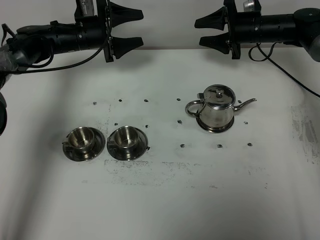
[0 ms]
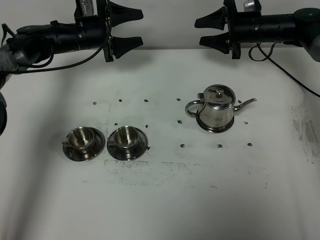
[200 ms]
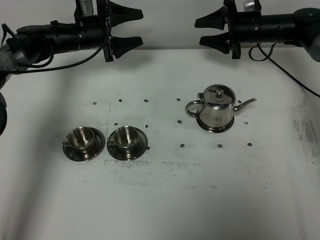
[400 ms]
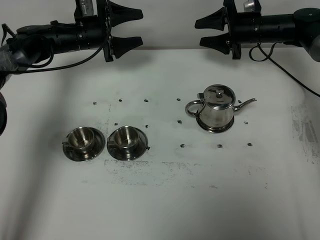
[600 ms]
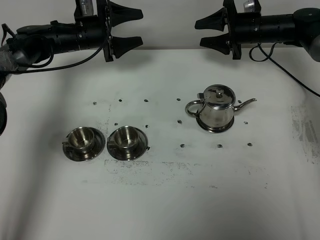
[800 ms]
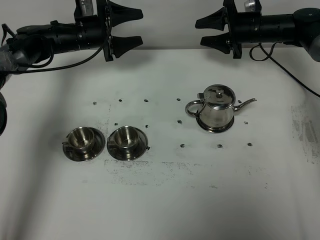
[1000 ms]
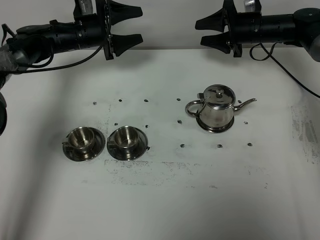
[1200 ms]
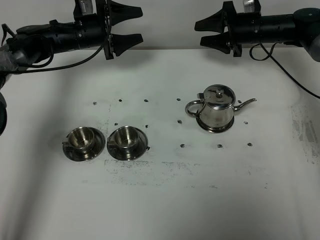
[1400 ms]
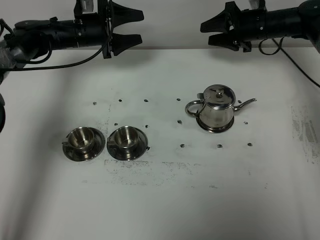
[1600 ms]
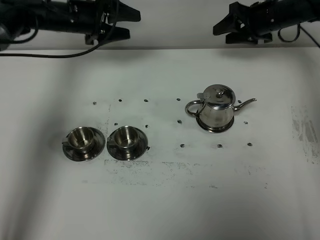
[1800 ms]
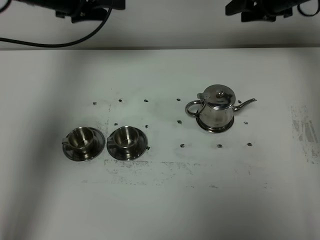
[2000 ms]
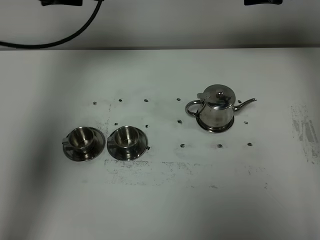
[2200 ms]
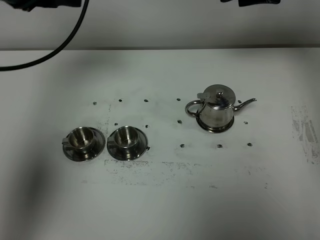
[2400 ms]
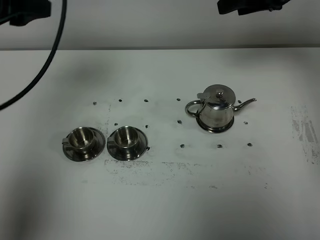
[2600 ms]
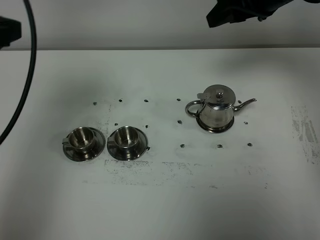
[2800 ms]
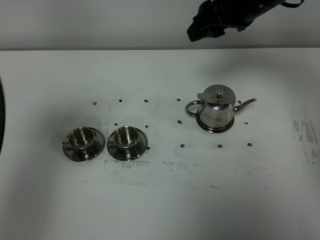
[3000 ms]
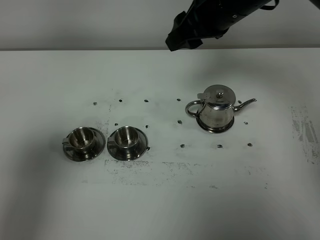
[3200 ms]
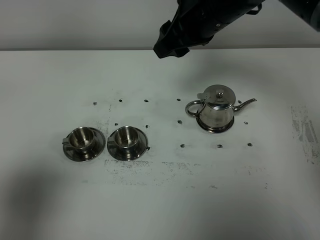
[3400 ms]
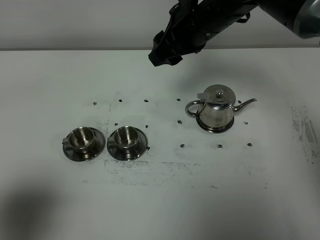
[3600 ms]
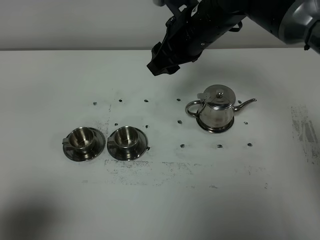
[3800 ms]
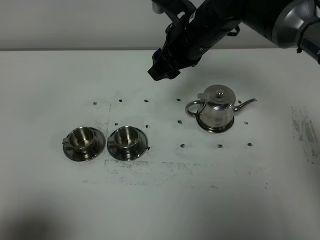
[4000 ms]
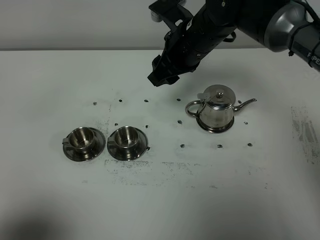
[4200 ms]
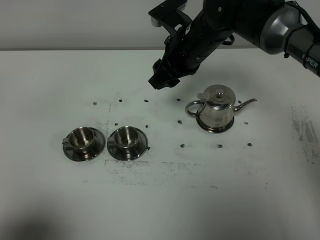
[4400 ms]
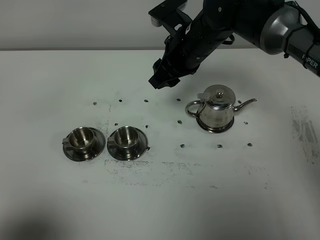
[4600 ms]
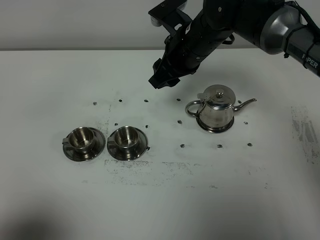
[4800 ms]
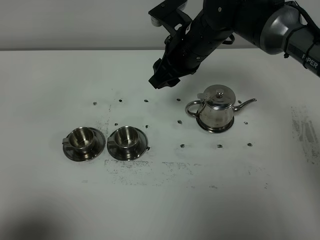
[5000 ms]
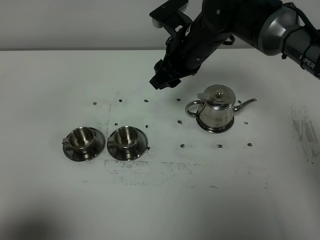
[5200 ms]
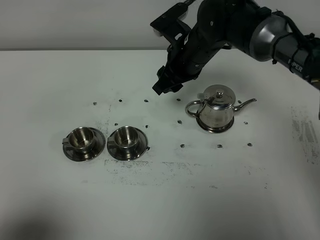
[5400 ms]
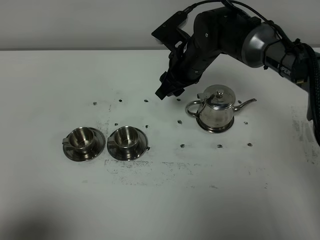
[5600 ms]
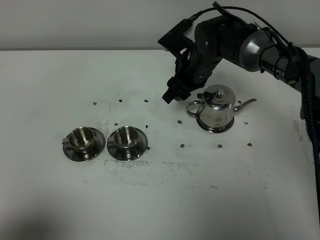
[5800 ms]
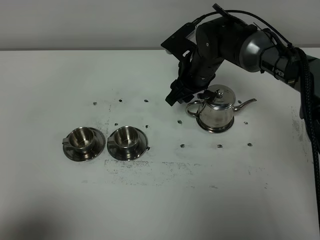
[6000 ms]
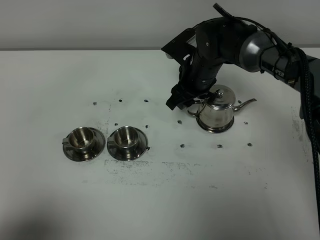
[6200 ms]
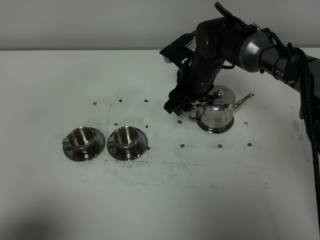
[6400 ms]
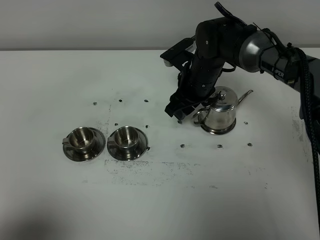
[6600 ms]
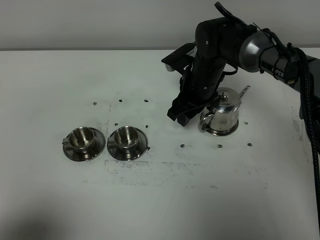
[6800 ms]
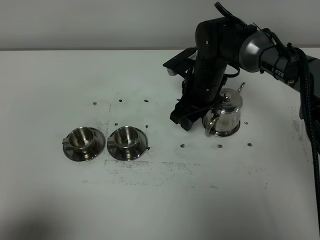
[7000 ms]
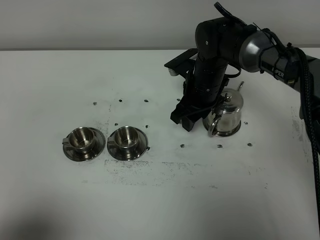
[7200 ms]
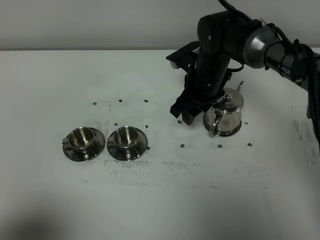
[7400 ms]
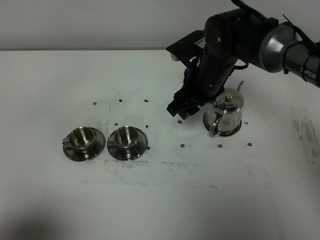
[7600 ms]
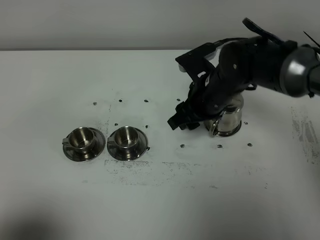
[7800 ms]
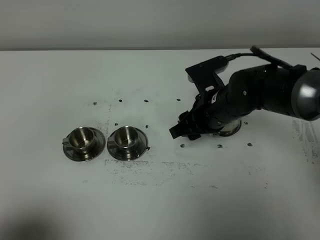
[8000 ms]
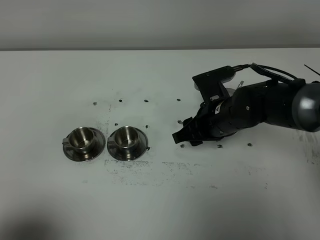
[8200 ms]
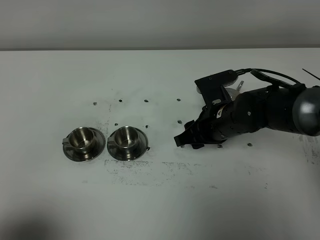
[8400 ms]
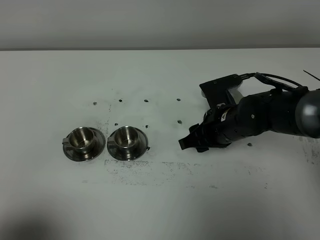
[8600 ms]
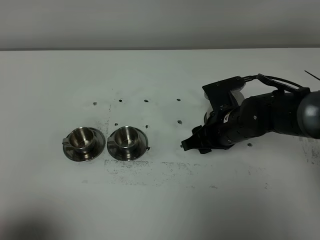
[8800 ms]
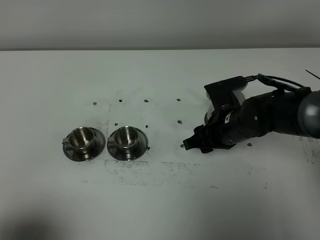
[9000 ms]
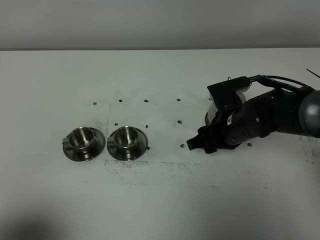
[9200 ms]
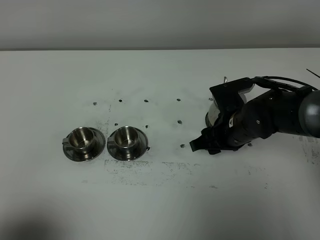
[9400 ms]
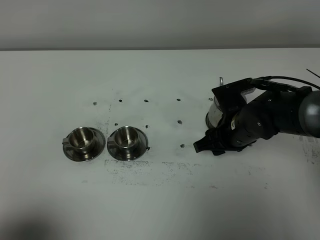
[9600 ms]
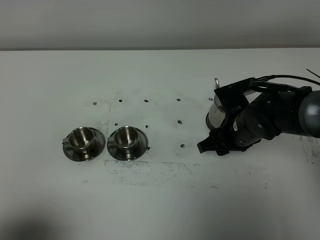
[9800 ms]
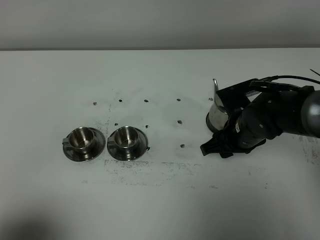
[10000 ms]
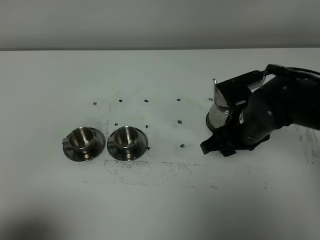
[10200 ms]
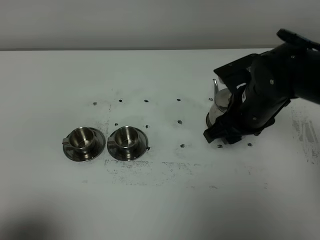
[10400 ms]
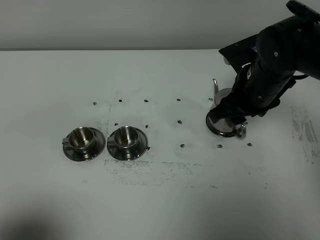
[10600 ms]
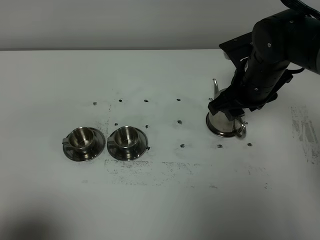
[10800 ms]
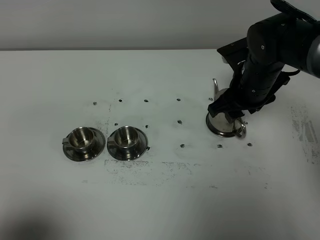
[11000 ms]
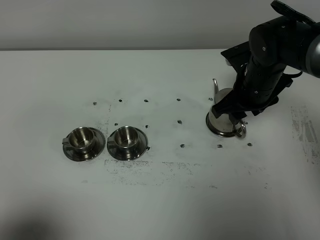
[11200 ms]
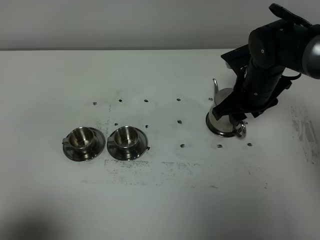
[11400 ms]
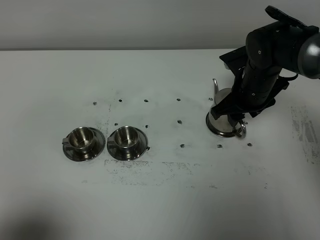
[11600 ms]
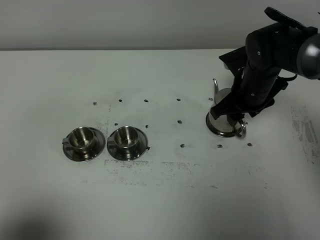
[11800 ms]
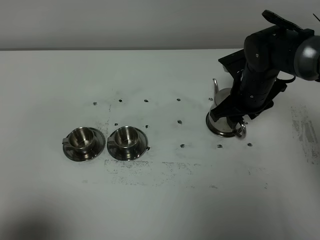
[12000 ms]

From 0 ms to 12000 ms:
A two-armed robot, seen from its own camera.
Task of the whole recording: grasp the stainless steel teapot and pour the tea into the two stainless steel teacups one by one, put the stainless steel teapot back in its original place.
From 0 ms to 1600 ms: The grippers make only small movements.
From 1600 ms to 3000 ms: The right gripper heads upward, backward and to the left, covering approximately 25 cm. The left gripper heads backward and upward, covering some 40 cm, and closes up.
From 3000 ms to 4400 ms: The right gripper moves downward and to the left, some 10 cm; the left gripper travels backward and downward by some 20 cm.
From 4400 ms to 6000 ms: The right gripper travels downward by about 10 cm.
From 6000 ms to 7600 ms: The right gripper heads backward, covering roughly 5 cm.
From 7600 ms to 9000 ms: The right gripper goes approximately 10 cm backward and downward.
From 9000 ms to 10400 ms: The right gripper shifts some 10 cm upward.
From 10400 ms to 12000 ms: The right gripper heads forward and downward, covering about 10 cm.

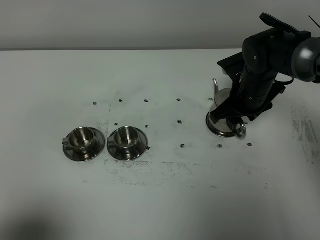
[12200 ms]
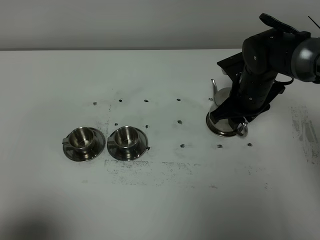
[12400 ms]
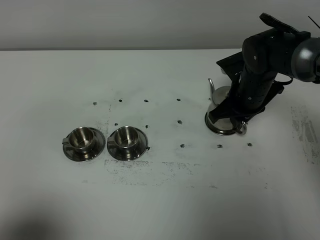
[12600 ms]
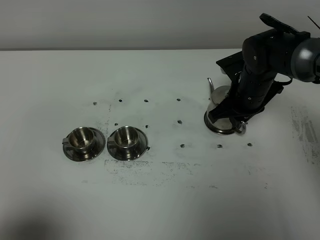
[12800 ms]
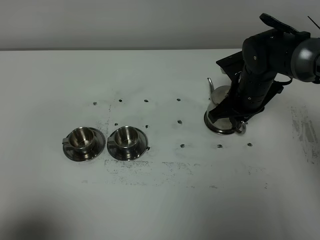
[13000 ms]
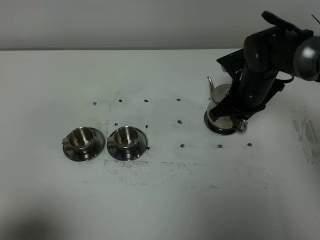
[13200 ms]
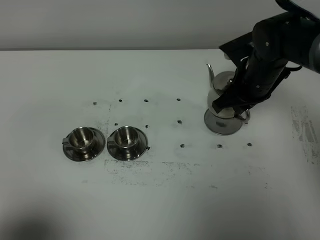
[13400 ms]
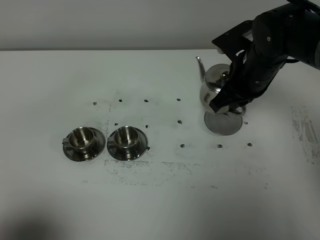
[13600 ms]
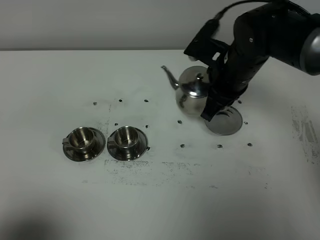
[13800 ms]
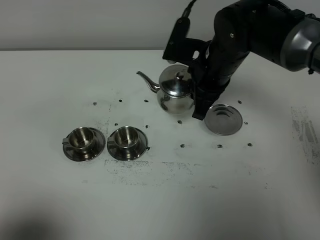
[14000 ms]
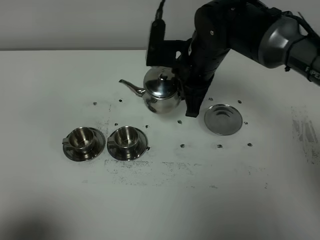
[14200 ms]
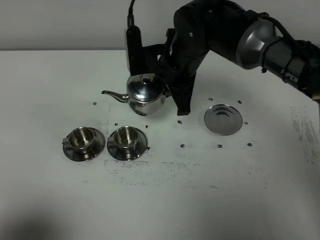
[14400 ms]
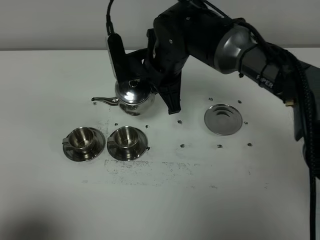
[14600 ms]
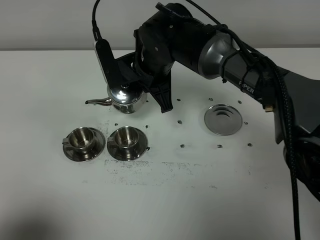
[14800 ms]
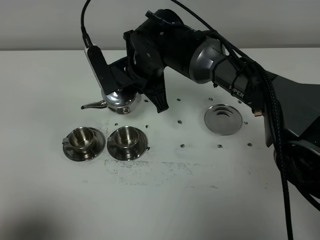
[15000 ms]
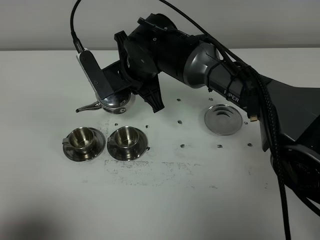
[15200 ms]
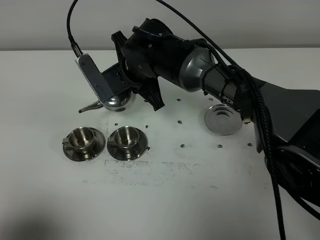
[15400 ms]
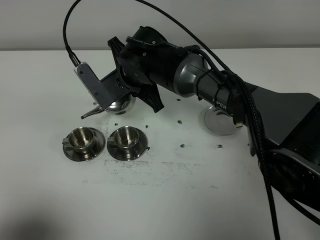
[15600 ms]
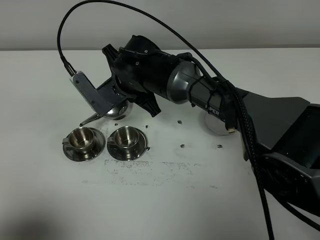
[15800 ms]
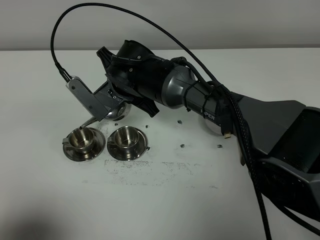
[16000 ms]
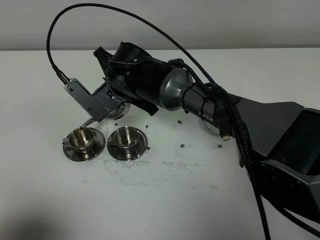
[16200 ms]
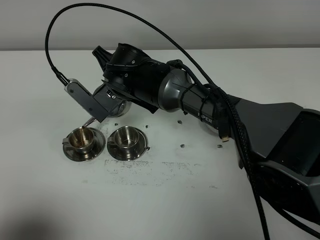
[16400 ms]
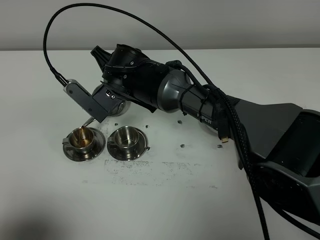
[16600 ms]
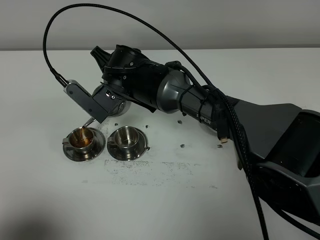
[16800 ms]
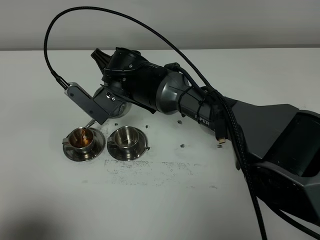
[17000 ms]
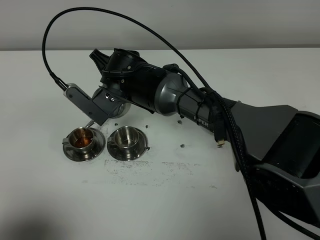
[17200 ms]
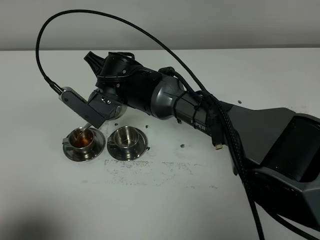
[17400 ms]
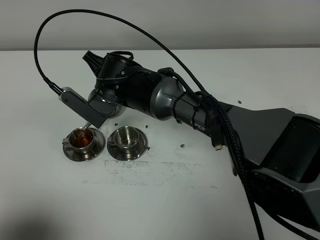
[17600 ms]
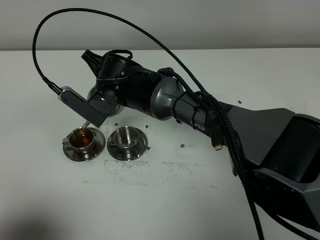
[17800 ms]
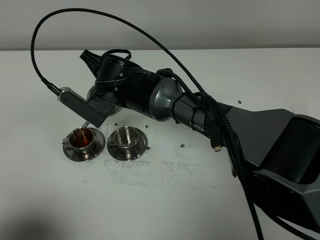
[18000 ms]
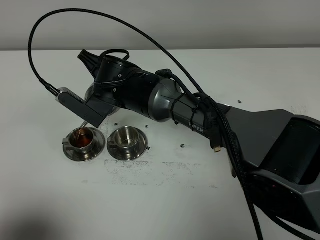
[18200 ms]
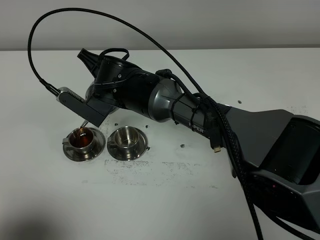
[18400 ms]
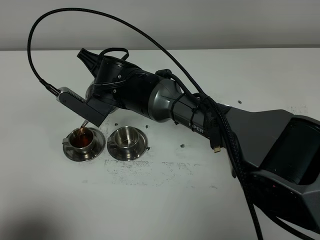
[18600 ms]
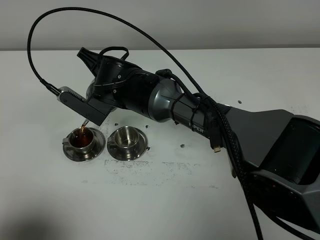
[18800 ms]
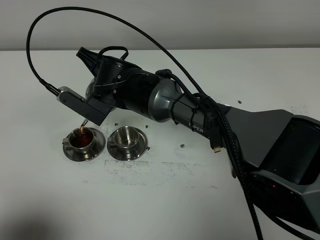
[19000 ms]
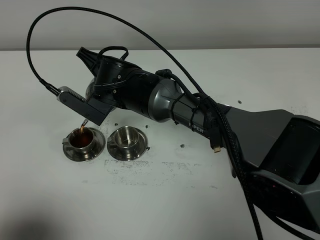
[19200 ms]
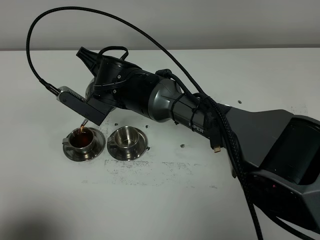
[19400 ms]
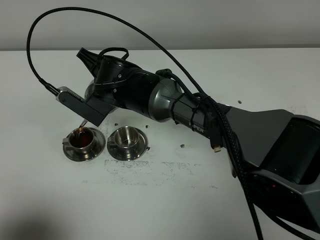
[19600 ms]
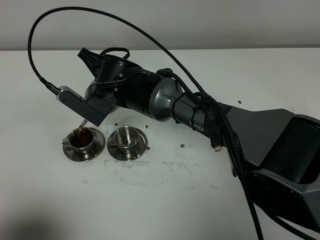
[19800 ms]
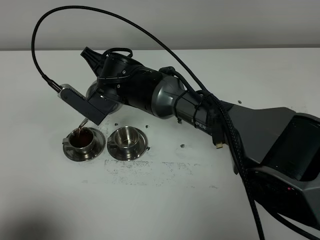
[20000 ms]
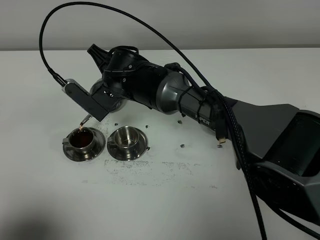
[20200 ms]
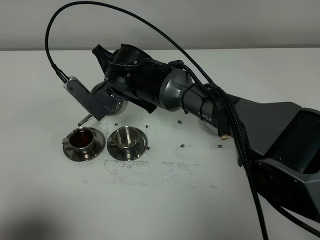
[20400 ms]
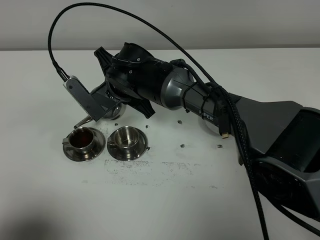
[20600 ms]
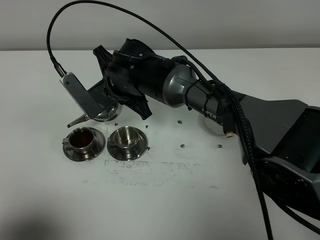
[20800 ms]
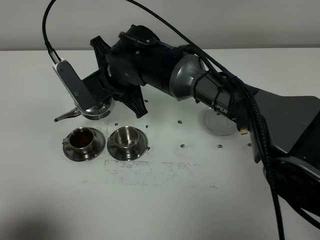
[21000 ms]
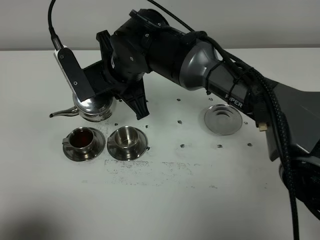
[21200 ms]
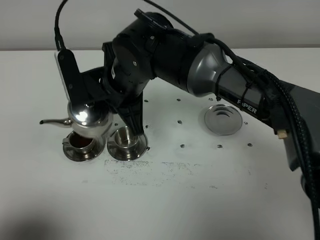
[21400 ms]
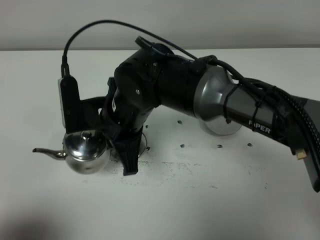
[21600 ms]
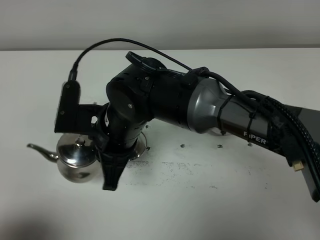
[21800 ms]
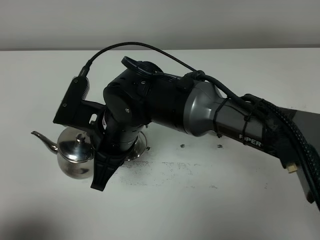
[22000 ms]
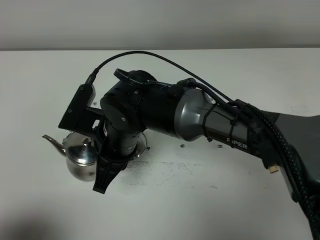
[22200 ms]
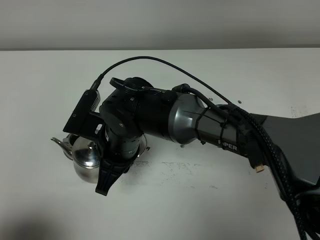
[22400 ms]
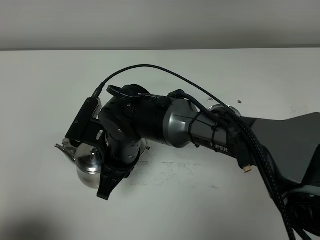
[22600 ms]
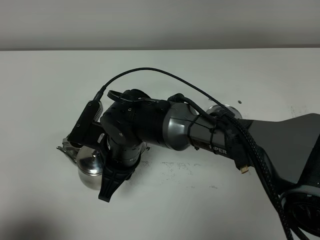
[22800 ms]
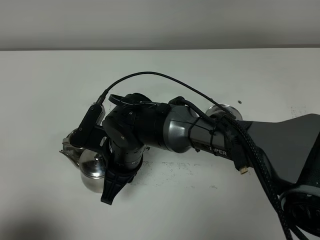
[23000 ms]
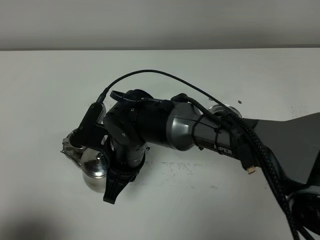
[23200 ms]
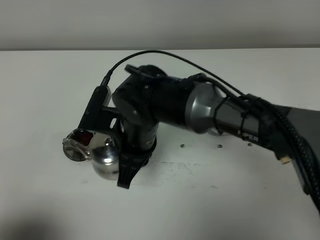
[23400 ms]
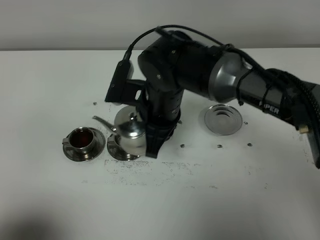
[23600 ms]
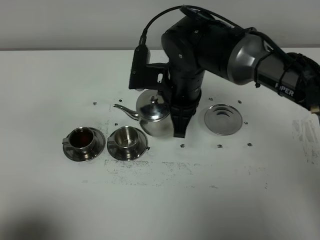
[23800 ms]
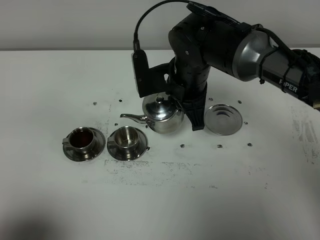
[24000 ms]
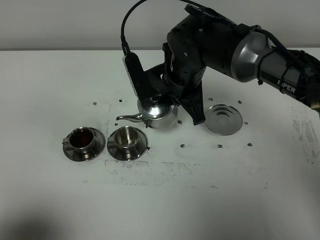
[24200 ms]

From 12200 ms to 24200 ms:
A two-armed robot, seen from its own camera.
Task of the whole recording: grasp the stainless steel teapot and pour the tea into the two stainless steel teacups one by one, put the stainless steel teapot back in its original place.
From 12200 ms to 13800 ms: The right gripper travels upward and to the left by approximately 10 cm, and closes its fingers.
From 13800 ms to 15200 ms: The right gripper goes approximately 15 cm to the left.
From 16600 ms to 18200 ms: There are only small adjustments of the grippers.
From 18200 ms to 19800 ms: The two grippers keep their place.
From 19800 ms to 21200 ms: The right gripper heads upward, covering some 5 cm.
From 21200 ms to 22600 ms: The right gripper goes approximately 10 cm downward and backward.
From 22600 ms to 24200 ms: The right gripper goes roughly 15 cm to the right, forward and upward.
